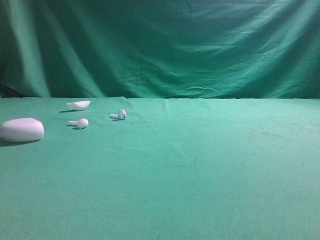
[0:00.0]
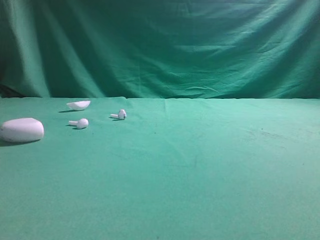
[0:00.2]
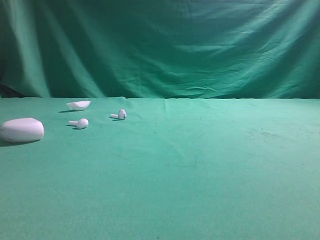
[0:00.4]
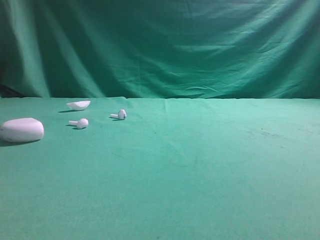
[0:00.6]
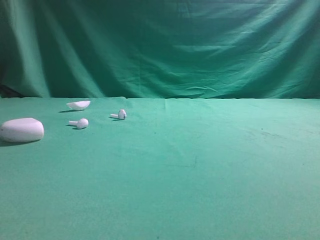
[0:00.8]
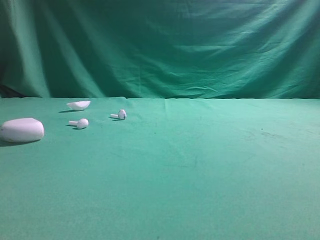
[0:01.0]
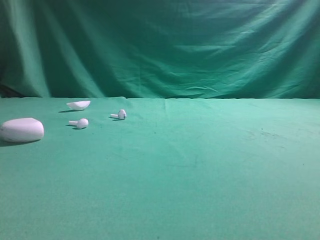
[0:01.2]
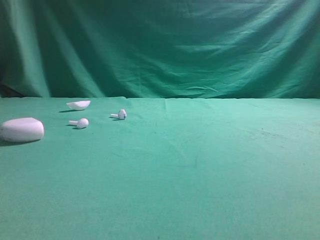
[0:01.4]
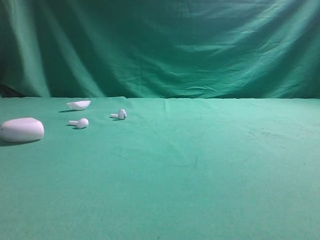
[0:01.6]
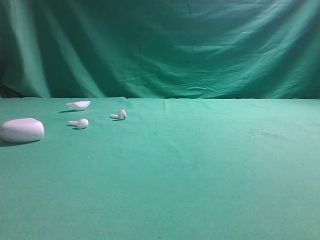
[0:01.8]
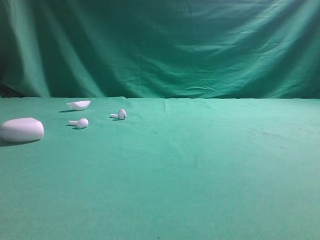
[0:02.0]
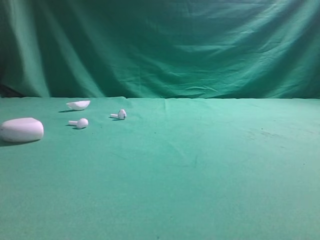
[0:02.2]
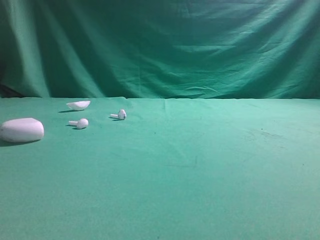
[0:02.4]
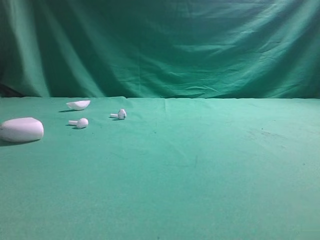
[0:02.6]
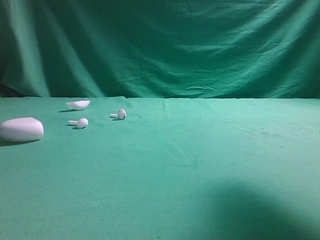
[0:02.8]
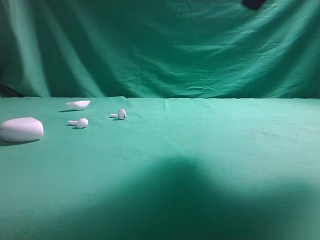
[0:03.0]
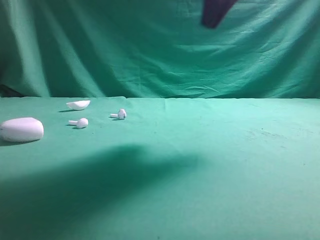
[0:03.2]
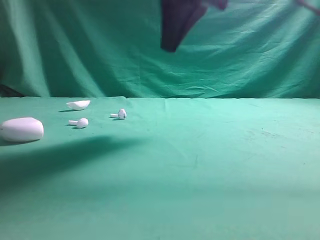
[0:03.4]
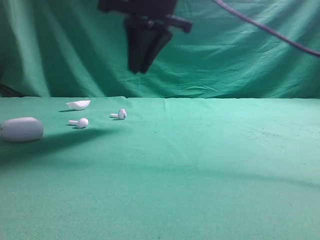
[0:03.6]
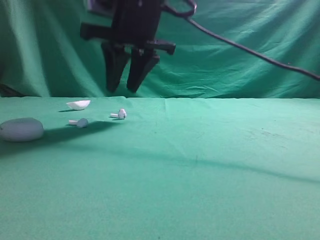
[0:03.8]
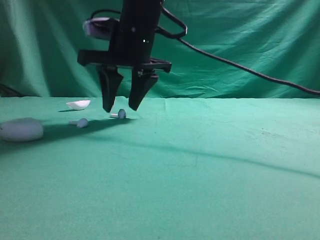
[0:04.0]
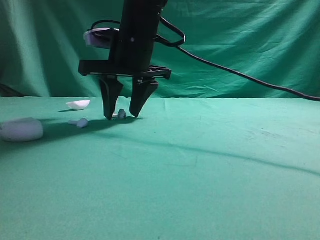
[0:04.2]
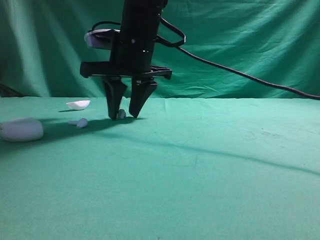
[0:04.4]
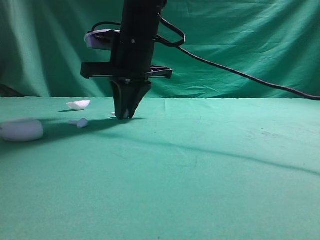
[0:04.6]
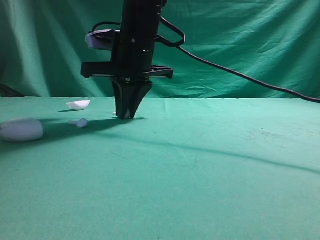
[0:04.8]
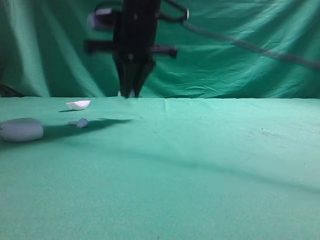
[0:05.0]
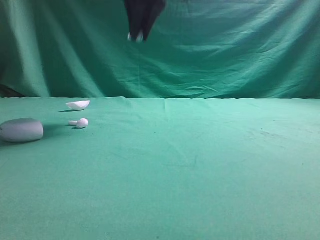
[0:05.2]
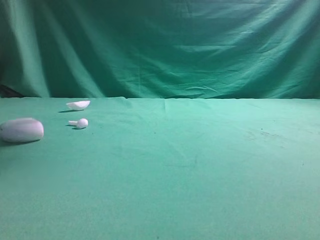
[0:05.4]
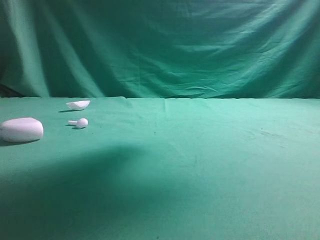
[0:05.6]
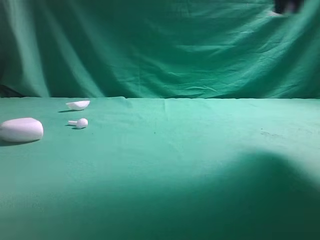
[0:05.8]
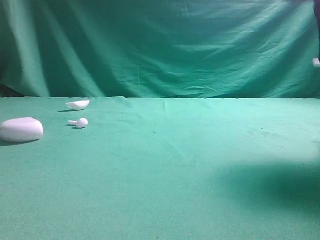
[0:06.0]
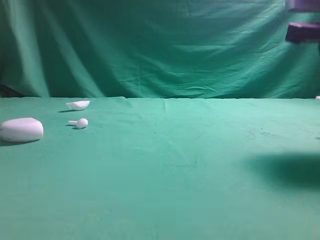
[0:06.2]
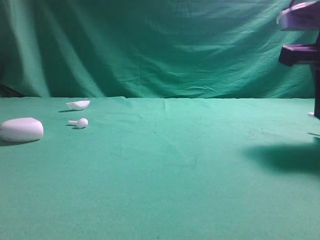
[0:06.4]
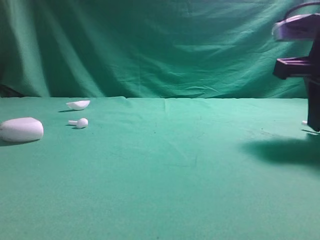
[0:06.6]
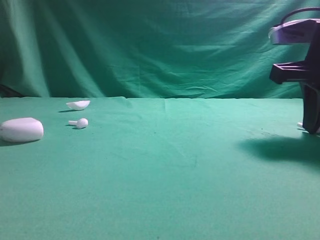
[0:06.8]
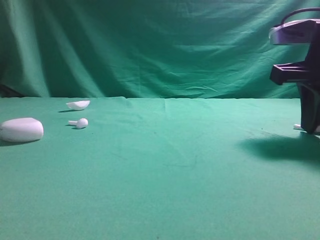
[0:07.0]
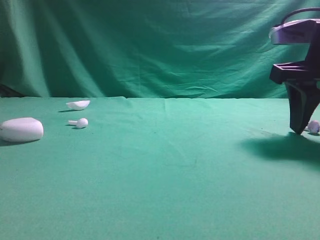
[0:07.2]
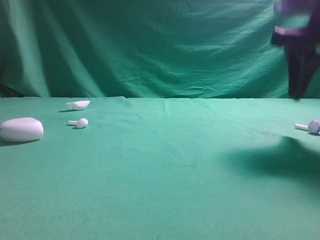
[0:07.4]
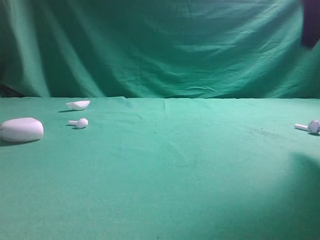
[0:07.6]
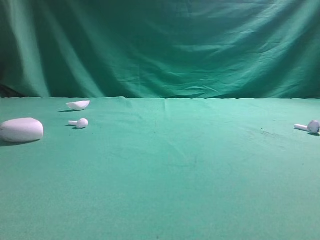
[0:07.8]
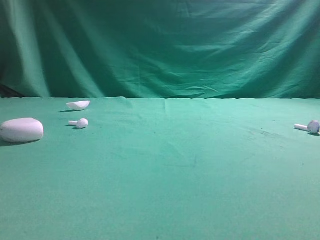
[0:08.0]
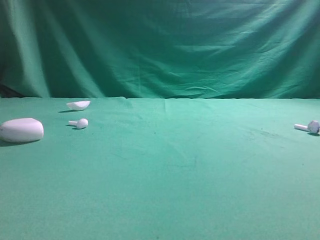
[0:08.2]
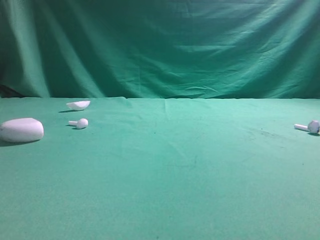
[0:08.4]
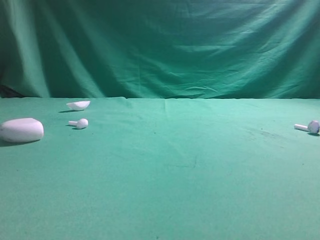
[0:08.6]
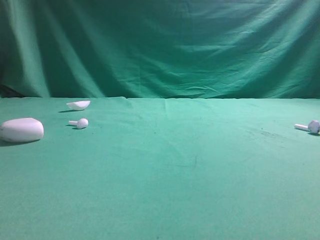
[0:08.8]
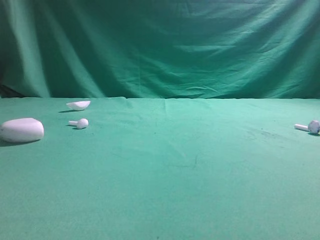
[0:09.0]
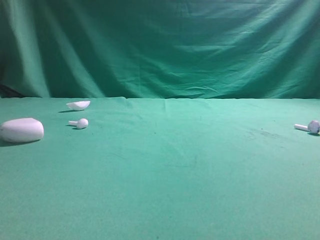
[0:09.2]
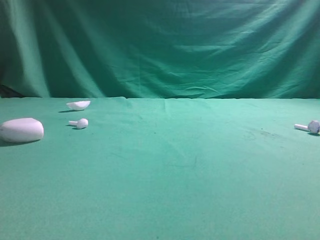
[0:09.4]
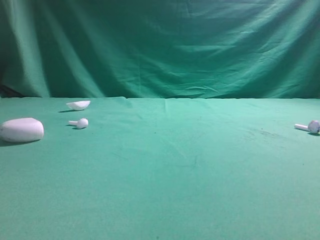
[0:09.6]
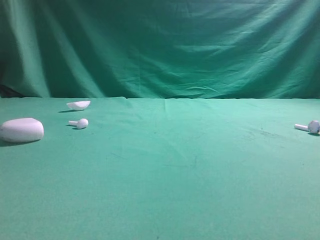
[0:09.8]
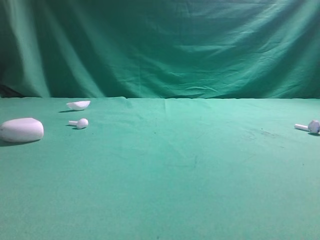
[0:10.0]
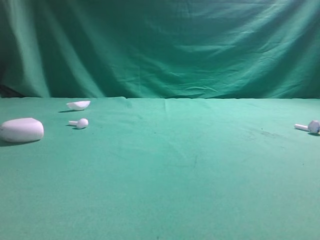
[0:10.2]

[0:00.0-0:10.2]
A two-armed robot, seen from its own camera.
Step, 0:00.0 to 0:04.8: Grasp the Bluetooth earbud.
Step, 0:05.0 to 0:07.2: Place bluetooth earbud on the right side of the table.

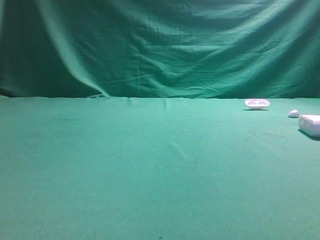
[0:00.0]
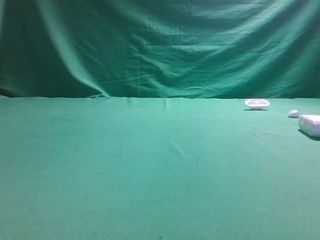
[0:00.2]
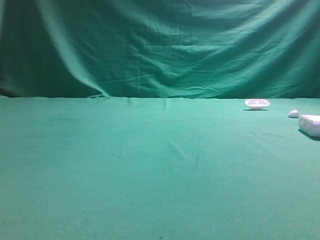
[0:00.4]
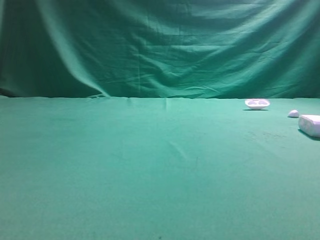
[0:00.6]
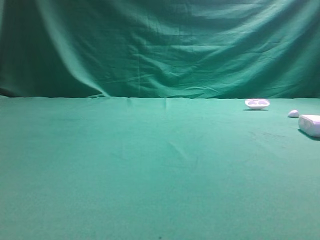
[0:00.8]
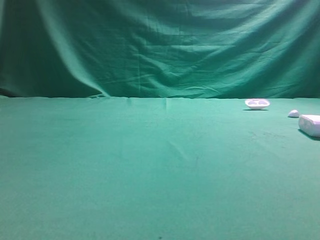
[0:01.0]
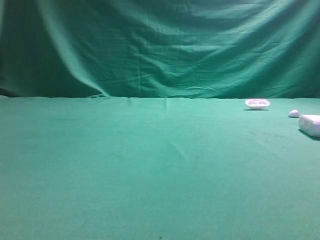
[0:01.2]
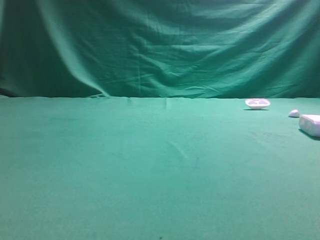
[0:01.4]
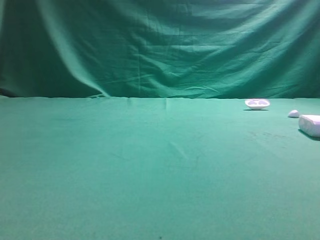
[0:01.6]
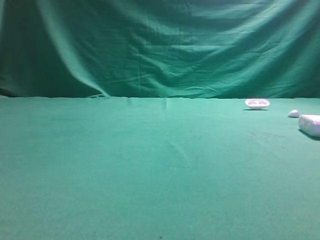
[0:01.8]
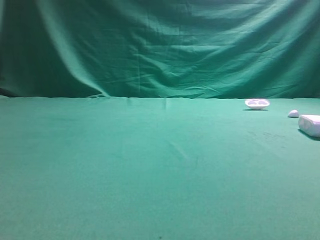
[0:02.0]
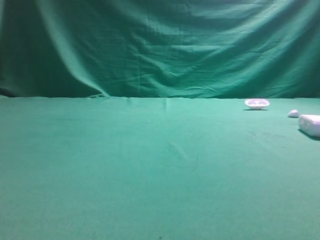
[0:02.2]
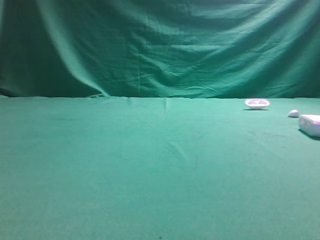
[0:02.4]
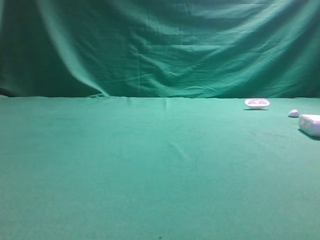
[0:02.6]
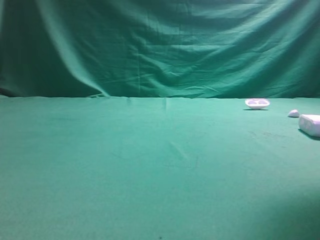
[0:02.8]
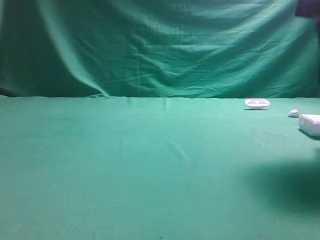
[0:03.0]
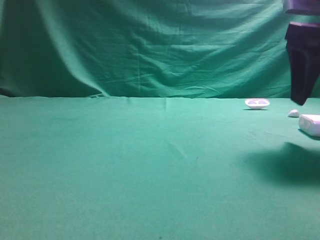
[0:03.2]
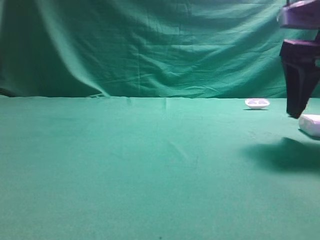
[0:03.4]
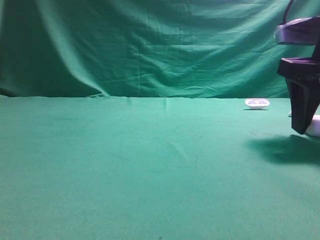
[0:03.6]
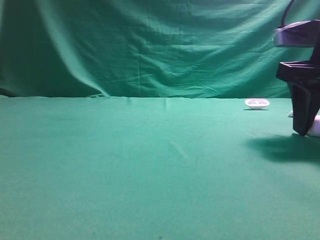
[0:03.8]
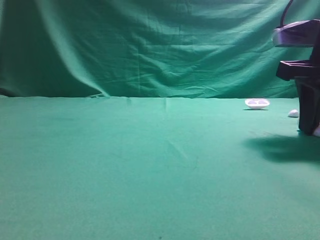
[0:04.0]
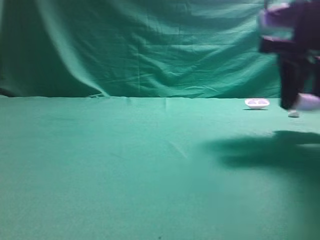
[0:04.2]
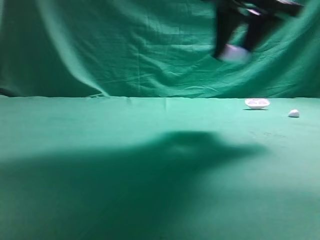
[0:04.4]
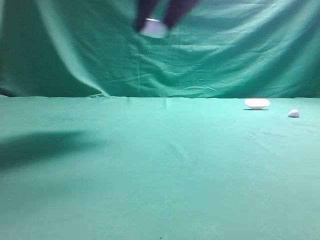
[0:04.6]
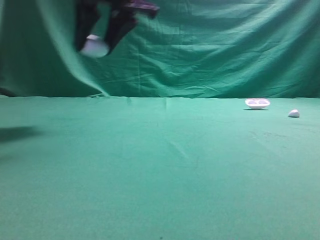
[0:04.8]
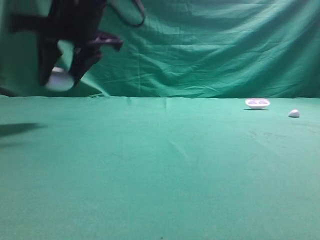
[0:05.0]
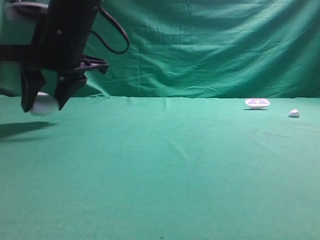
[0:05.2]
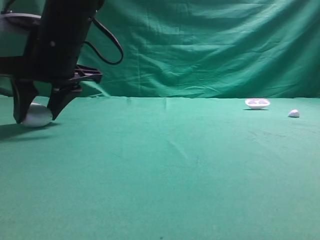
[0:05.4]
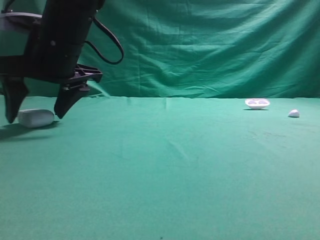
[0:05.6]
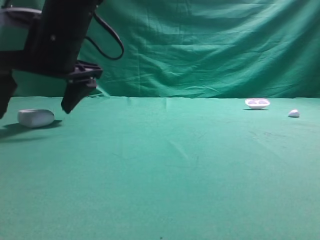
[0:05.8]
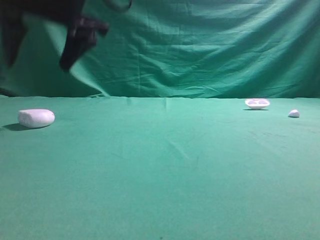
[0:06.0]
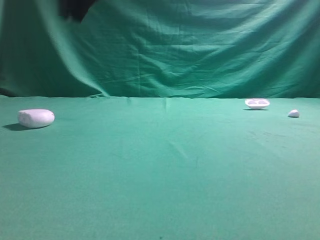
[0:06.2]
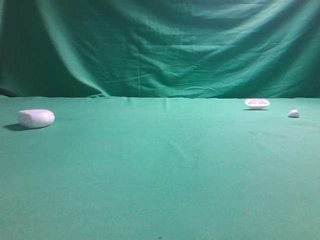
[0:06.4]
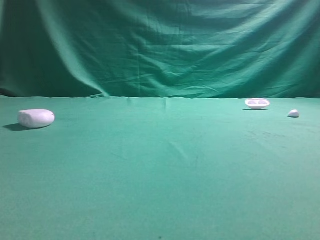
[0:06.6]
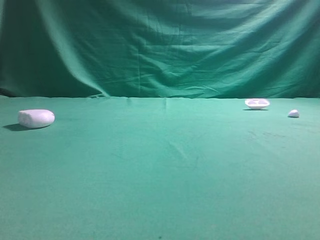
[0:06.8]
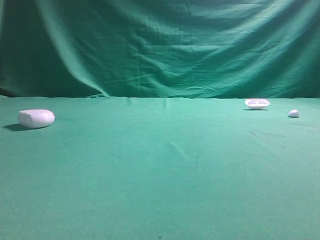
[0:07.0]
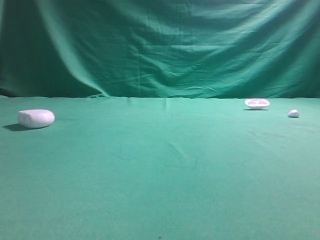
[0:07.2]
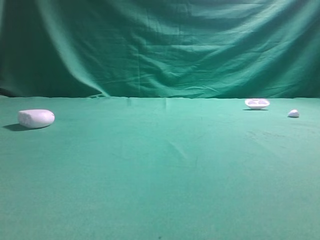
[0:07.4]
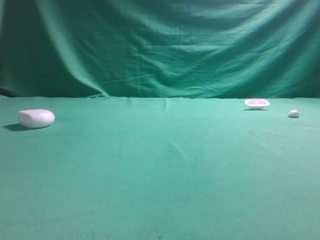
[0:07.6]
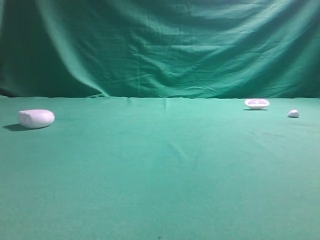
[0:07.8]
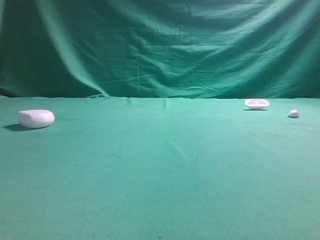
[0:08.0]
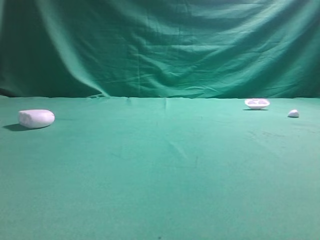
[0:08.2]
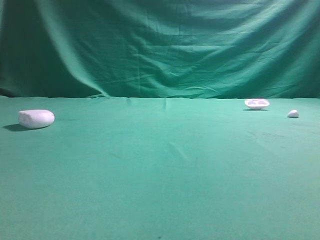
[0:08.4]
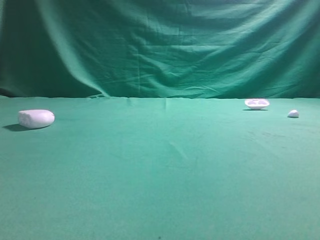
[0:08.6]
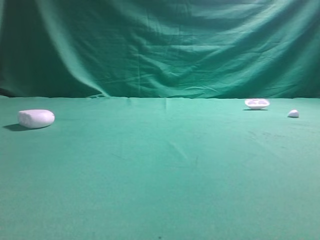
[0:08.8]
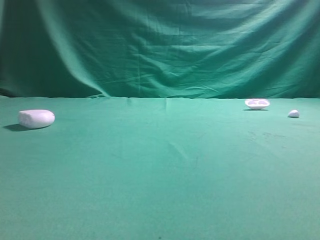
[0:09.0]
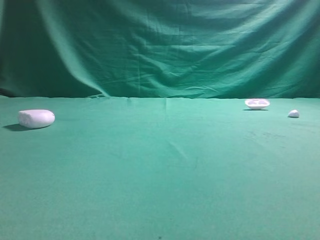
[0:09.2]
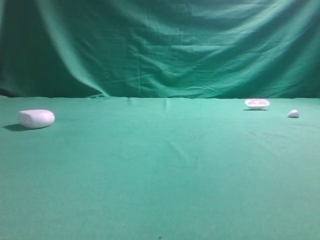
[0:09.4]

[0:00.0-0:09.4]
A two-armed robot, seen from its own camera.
Step, 0:00.0 to 0:03.4: Grasp the Bluetooth earphone case.
Step, 0:03.6 to 0:05.8: Place bluetooth earphone case on the left side of the table.

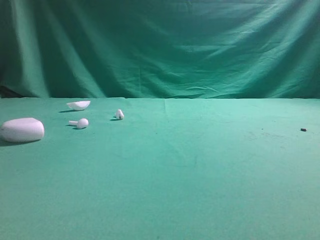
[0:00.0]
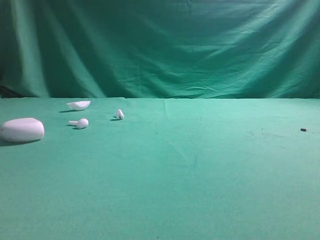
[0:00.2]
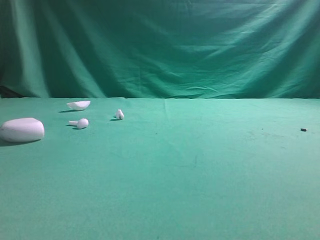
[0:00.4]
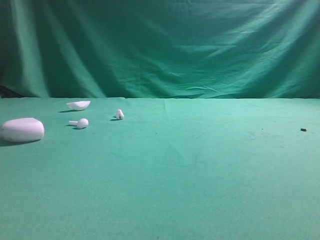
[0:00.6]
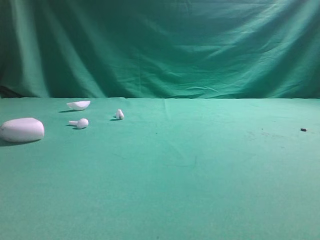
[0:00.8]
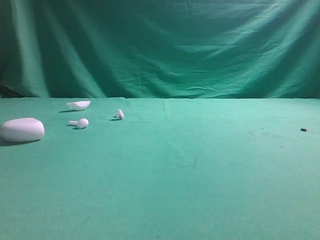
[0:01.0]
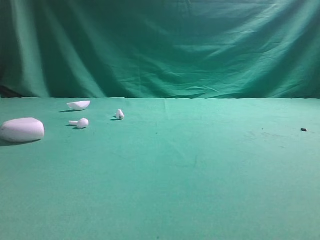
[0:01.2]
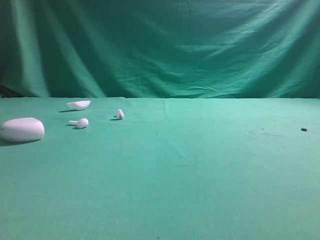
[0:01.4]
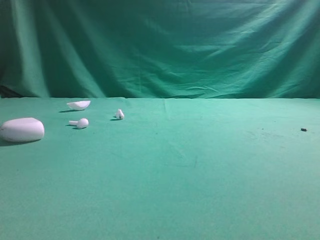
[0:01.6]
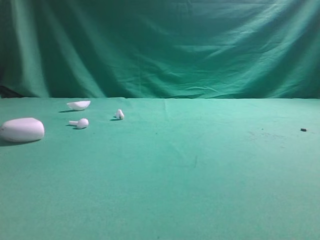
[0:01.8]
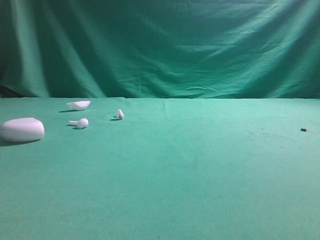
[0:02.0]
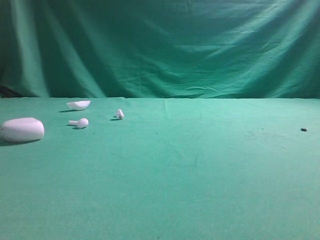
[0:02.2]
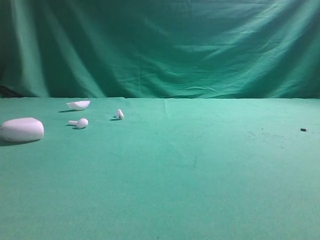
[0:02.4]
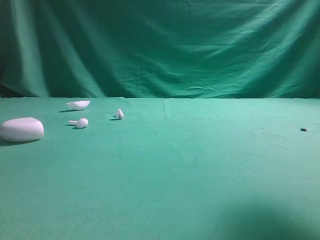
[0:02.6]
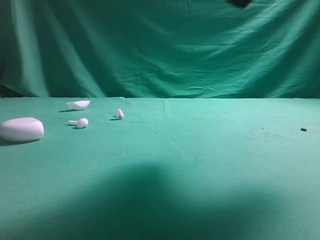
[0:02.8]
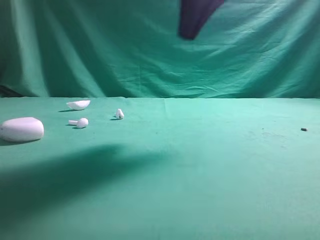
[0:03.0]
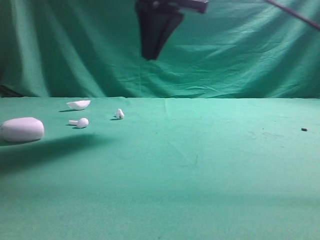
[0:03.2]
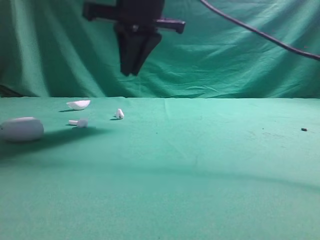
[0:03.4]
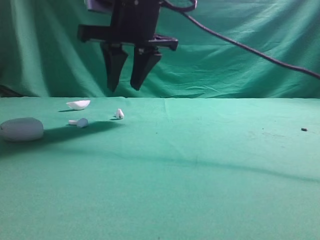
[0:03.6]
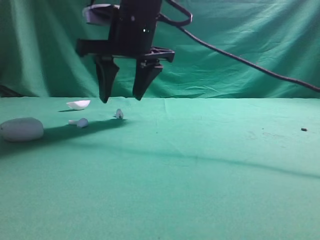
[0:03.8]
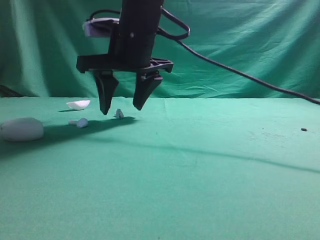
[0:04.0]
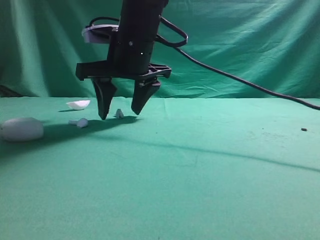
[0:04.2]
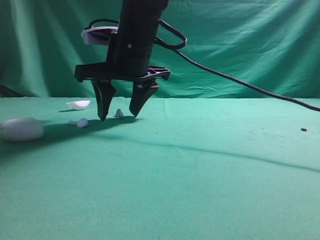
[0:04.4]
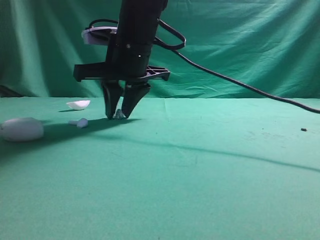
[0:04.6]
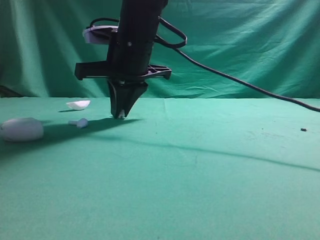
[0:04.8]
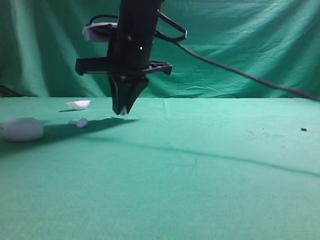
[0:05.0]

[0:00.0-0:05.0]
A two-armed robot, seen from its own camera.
Step, 0:00.0 to 0:05.0: Grasp the Bluetooth earbud.
